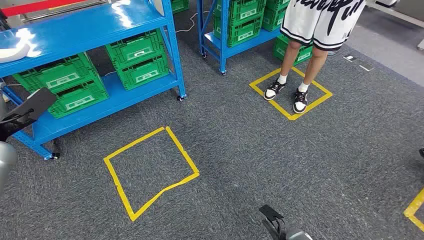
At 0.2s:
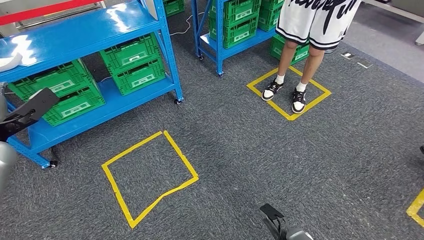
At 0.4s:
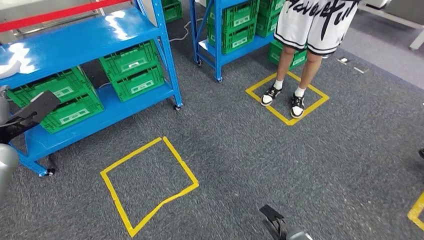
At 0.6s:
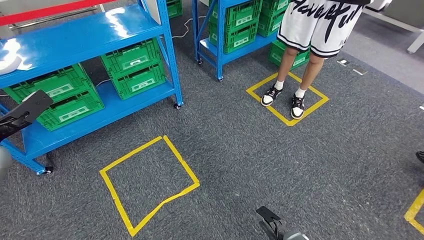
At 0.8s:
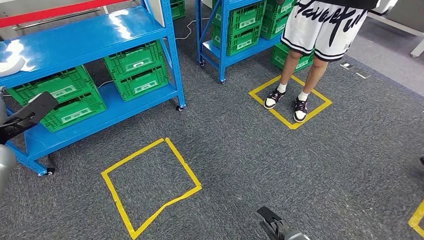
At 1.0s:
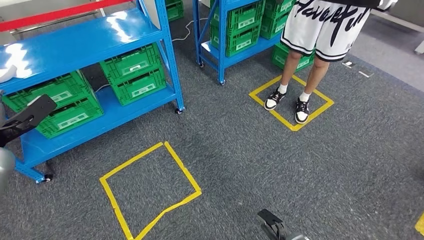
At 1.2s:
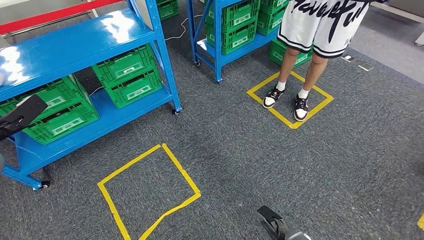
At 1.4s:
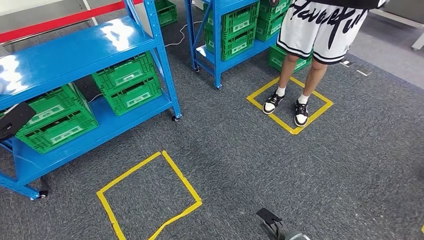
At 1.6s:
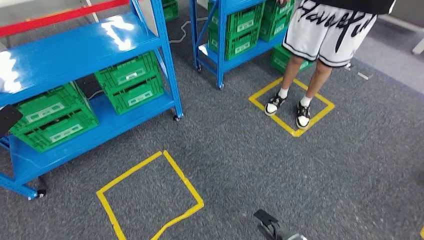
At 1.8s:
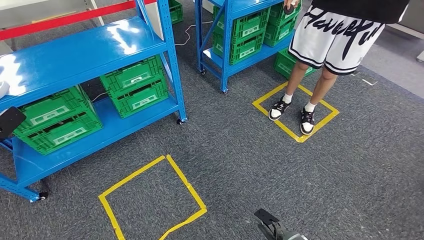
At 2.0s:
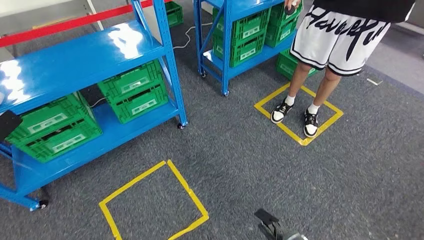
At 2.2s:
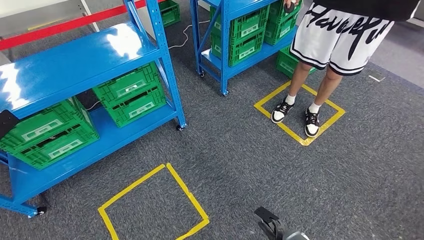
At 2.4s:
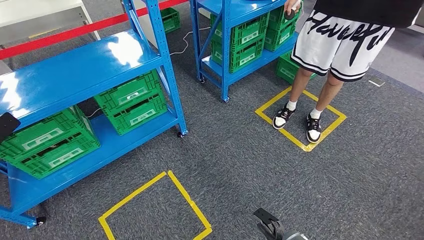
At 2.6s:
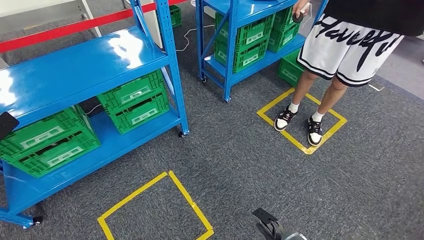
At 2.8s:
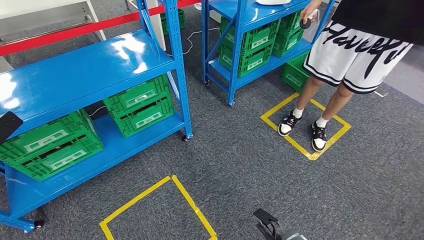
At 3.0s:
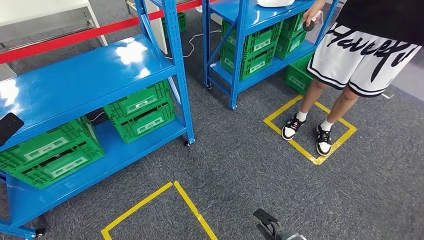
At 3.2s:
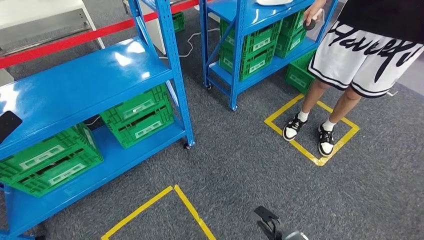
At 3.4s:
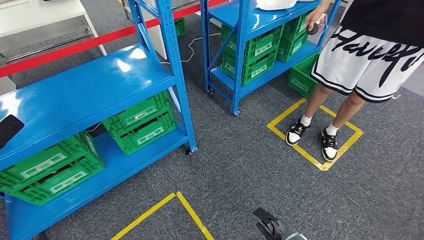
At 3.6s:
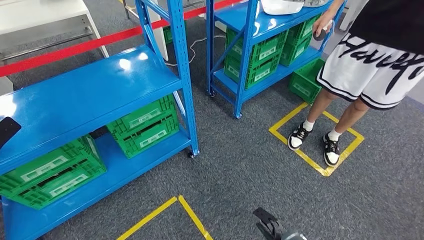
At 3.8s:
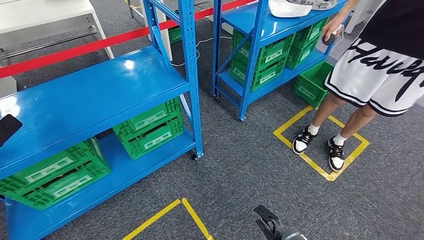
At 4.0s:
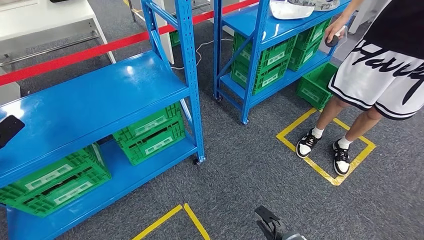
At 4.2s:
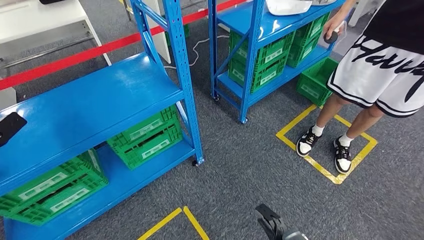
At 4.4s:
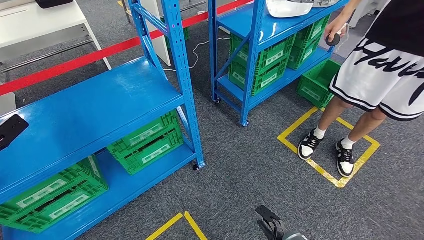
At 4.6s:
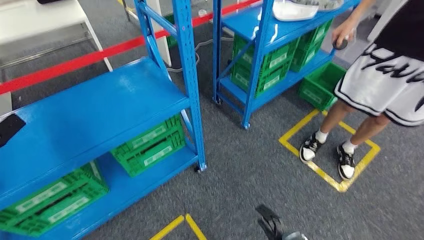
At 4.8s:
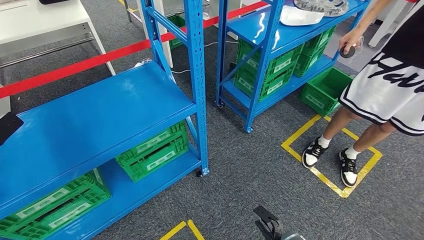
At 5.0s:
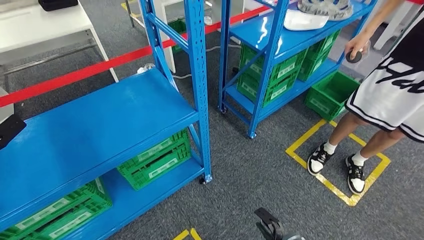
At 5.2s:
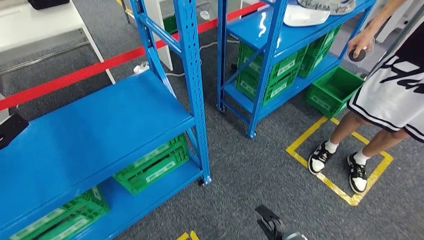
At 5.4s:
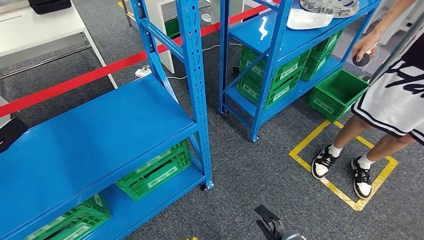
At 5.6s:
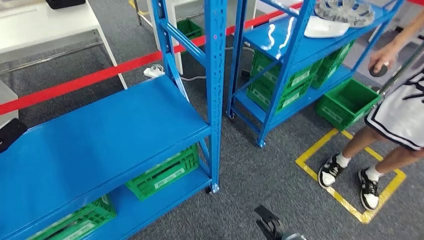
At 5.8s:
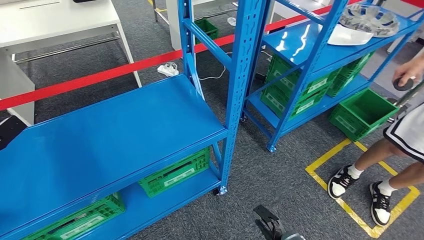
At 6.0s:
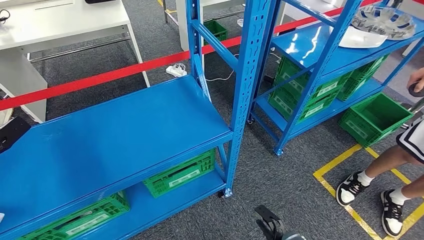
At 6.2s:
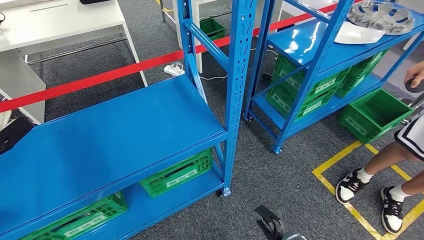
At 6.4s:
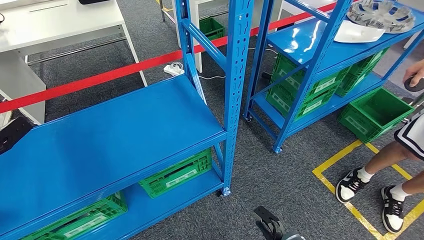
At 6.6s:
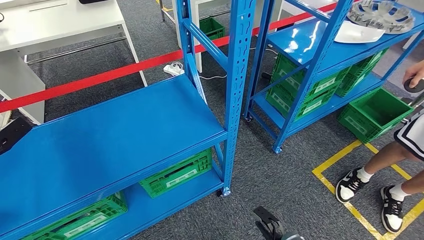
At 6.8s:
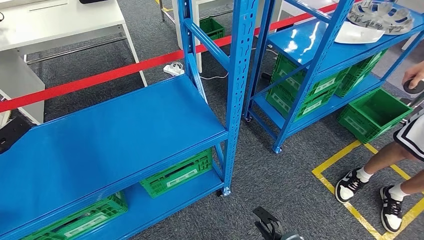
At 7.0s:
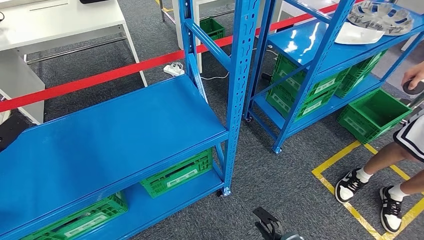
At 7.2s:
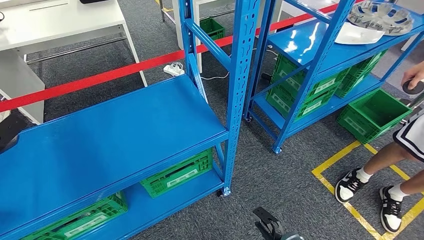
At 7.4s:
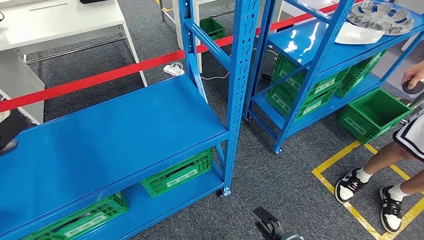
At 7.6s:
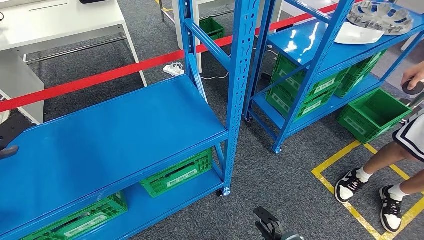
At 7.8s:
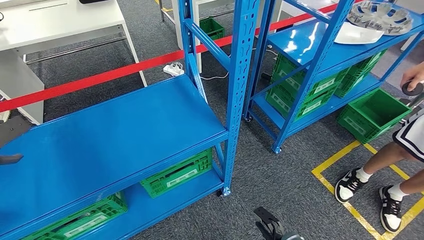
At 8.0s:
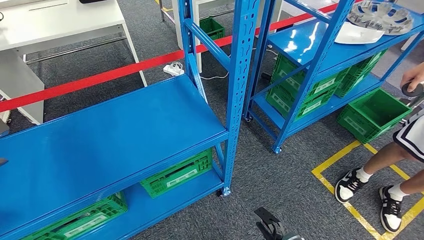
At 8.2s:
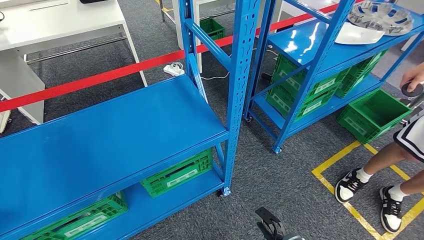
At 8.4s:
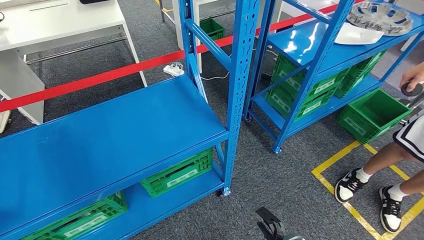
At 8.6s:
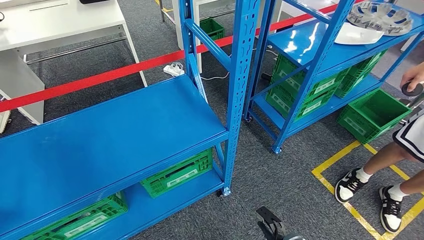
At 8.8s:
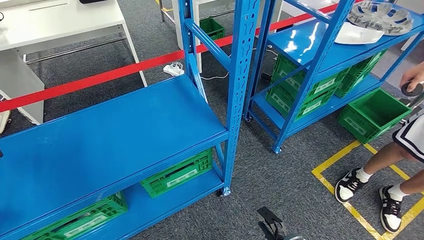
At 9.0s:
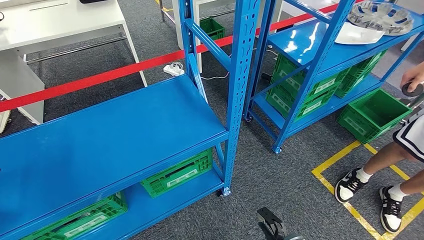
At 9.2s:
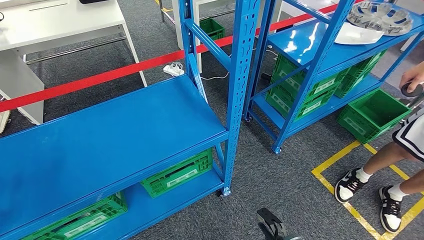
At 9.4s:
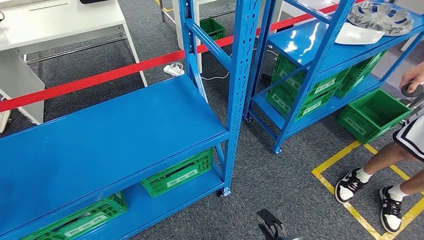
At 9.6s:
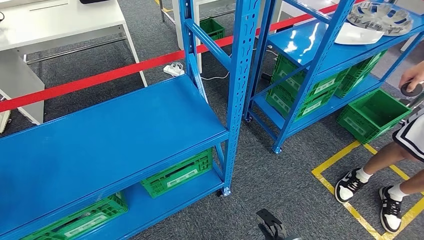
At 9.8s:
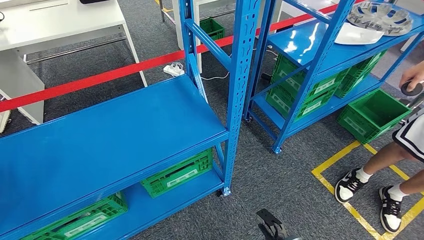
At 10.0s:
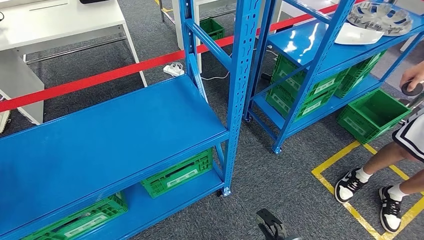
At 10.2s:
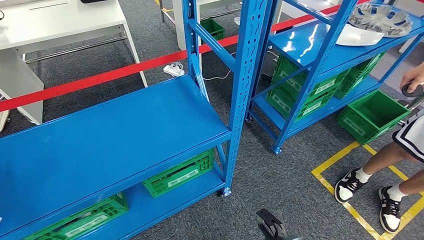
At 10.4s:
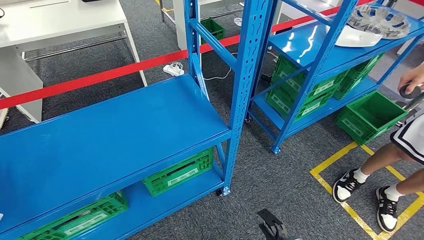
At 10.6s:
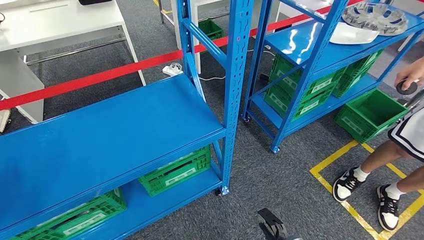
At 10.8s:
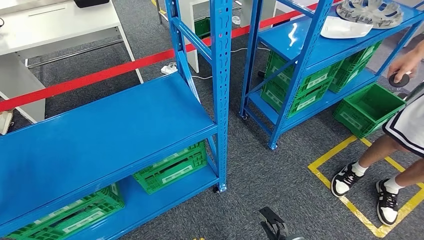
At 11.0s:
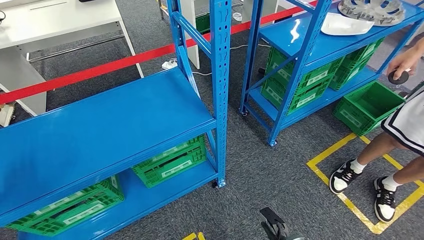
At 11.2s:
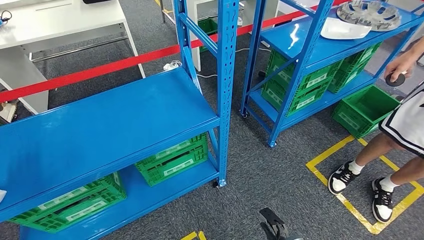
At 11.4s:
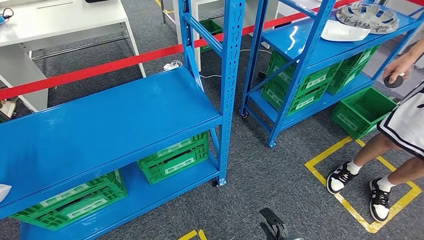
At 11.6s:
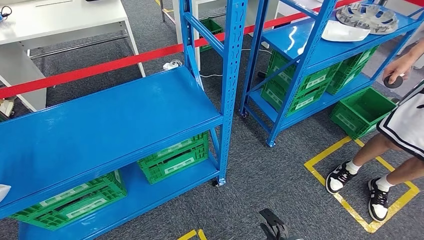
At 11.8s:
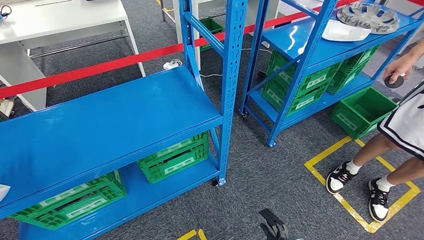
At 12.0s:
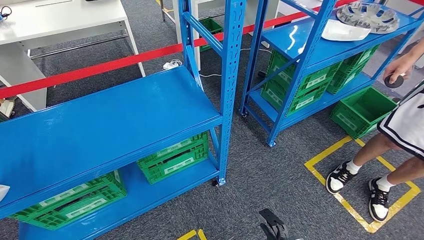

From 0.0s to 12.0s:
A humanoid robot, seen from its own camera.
From 7.6s to 9.0s: The left hand is displaced to the left by approximately 10 cm.
From 9.0s to 10.4s: The left hand travels to the left and backward by some 10 cm.

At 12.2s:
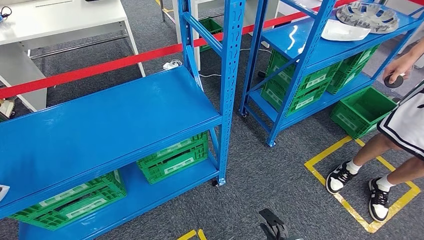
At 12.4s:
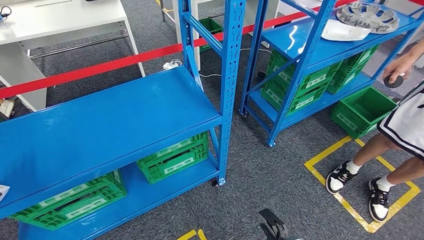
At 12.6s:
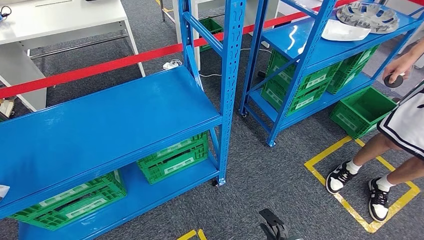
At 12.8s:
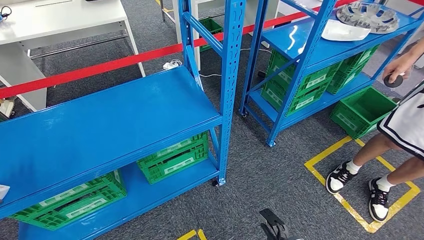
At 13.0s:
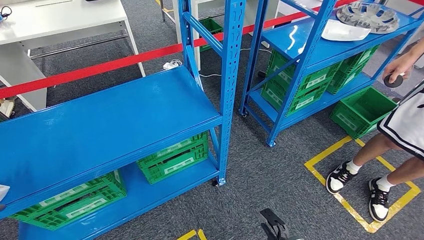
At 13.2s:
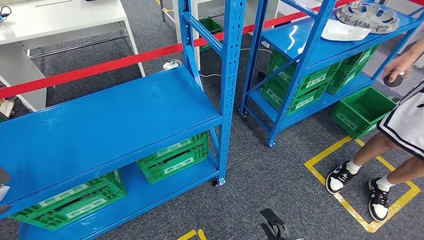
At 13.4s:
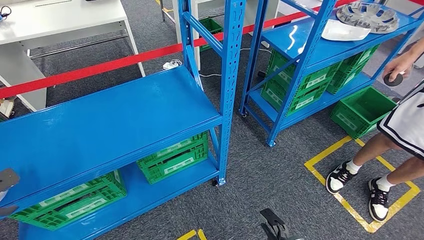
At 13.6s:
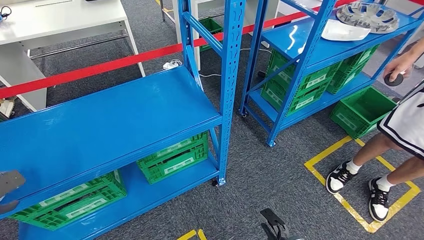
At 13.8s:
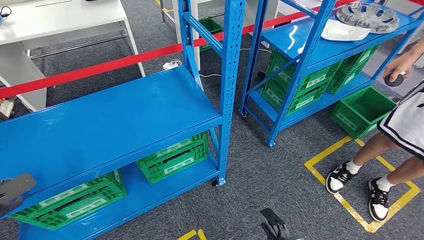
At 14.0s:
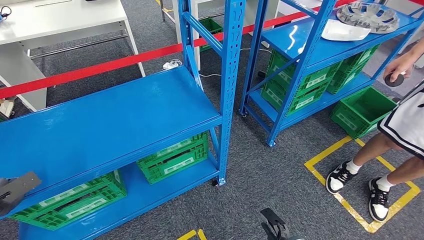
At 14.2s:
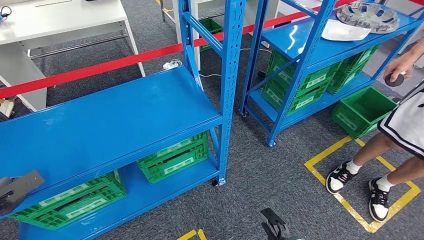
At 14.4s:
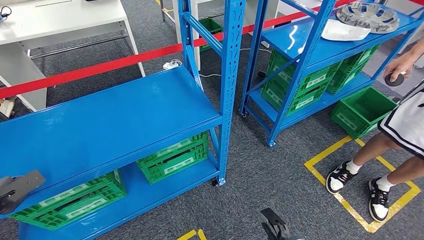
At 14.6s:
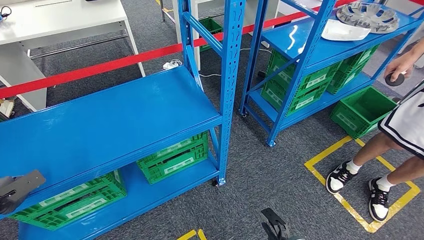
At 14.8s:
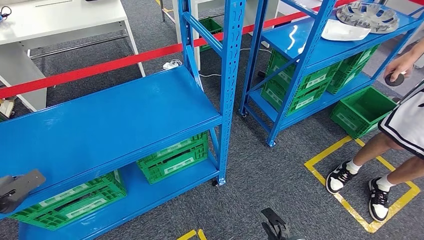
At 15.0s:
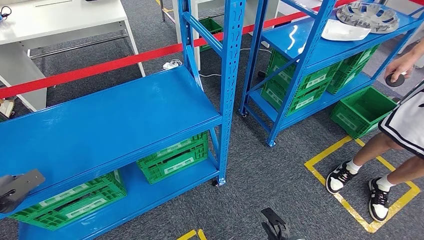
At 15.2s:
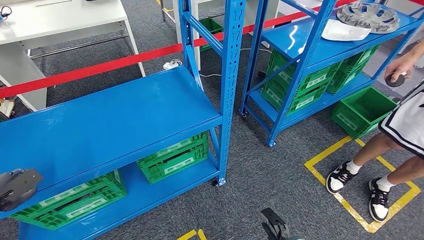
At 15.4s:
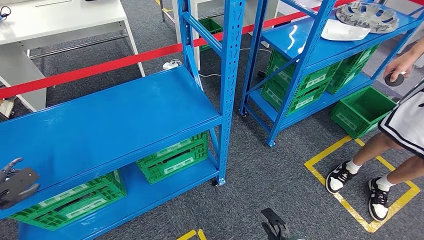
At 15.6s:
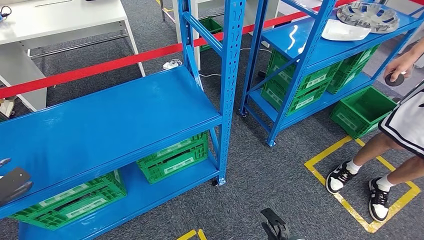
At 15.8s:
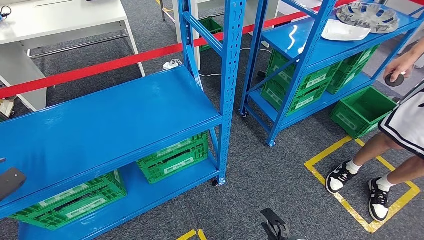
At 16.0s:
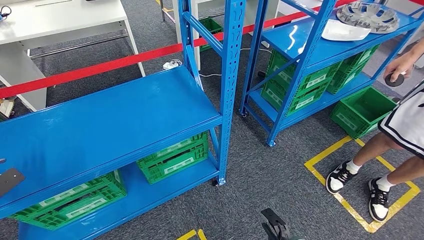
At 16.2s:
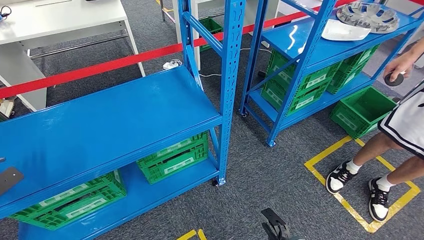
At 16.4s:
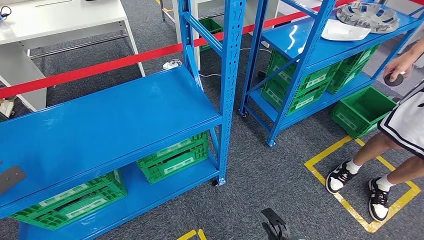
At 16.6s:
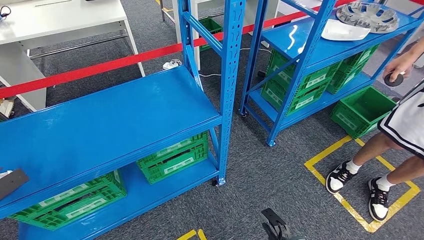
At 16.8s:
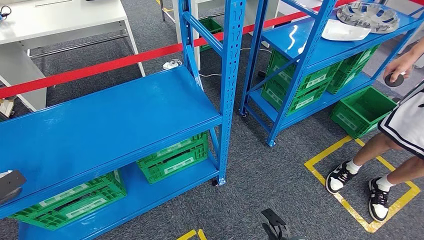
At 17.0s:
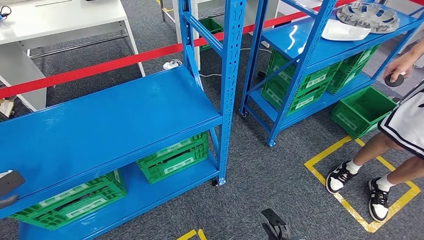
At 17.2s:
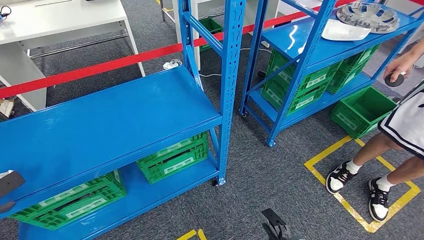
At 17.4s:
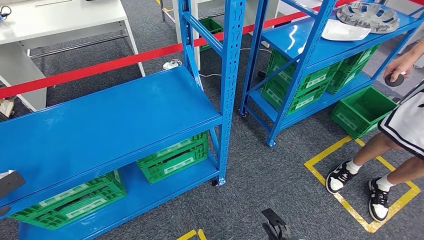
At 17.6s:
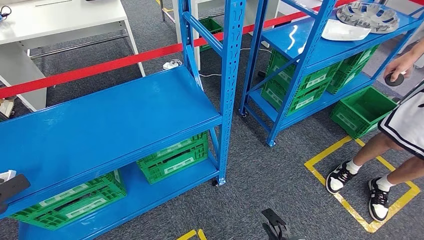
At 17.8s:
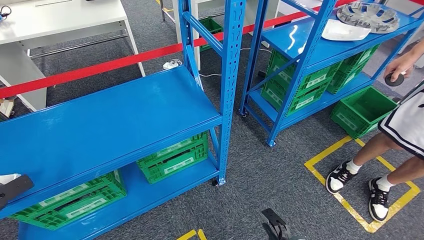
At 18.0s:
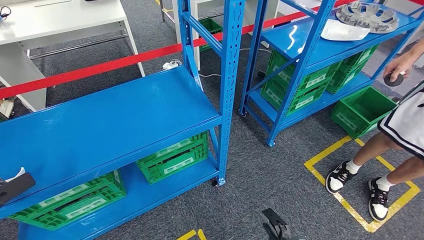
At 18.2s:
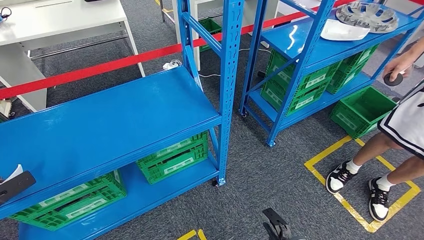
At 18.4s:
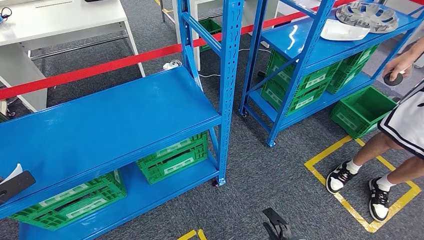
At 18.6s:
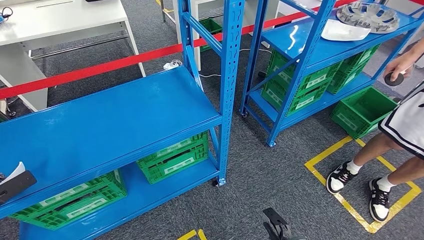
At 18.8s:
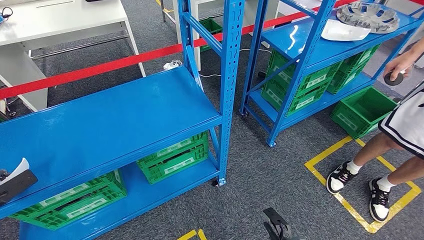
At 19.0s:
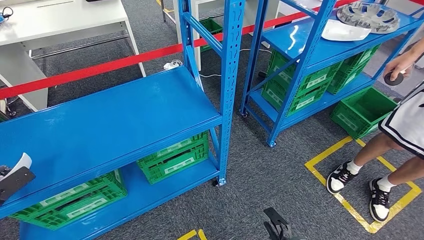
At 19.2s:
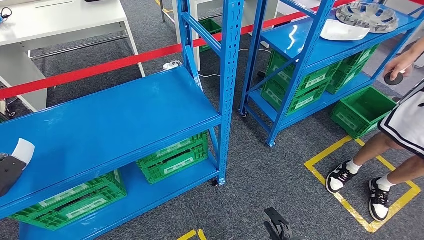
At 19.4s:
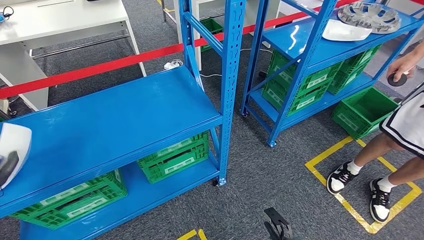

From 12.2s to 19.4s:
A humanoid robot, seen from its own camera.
From 13.6s to 16.6s: The hands stay close to where they were, moving slightly.
